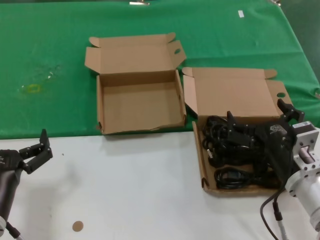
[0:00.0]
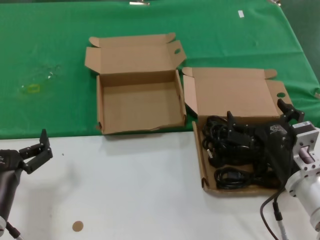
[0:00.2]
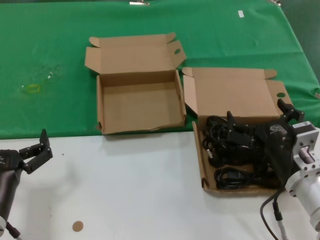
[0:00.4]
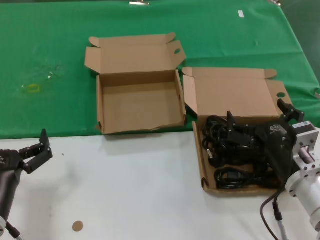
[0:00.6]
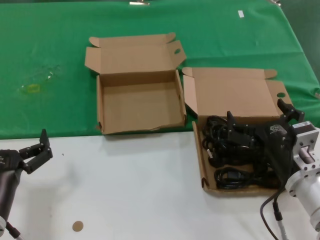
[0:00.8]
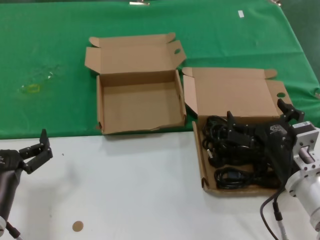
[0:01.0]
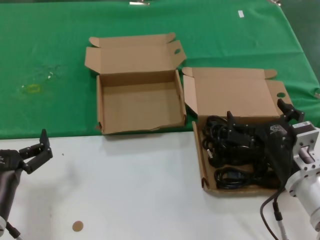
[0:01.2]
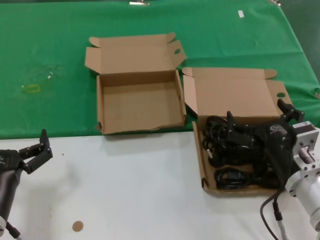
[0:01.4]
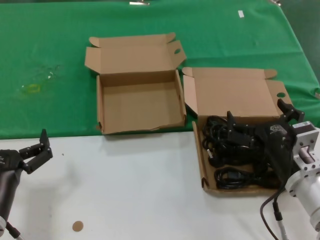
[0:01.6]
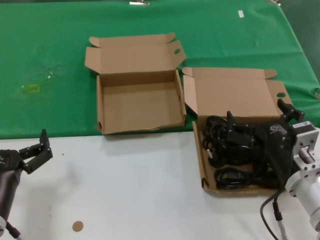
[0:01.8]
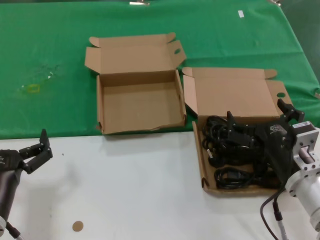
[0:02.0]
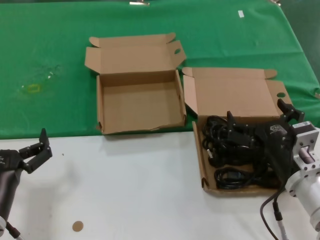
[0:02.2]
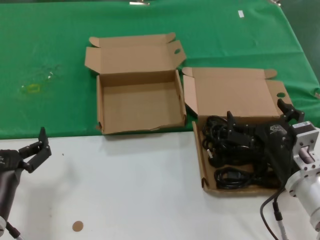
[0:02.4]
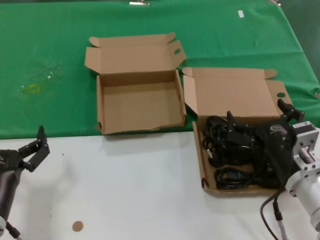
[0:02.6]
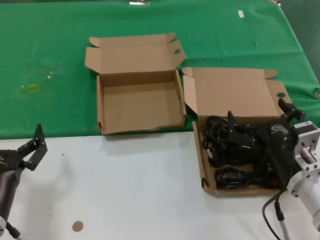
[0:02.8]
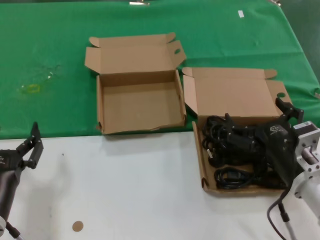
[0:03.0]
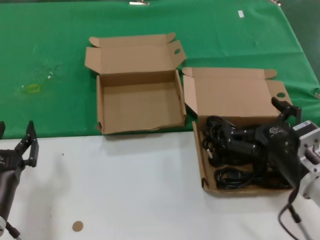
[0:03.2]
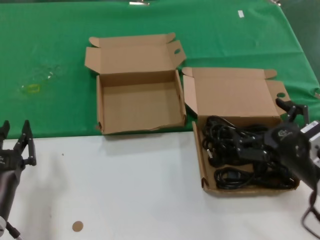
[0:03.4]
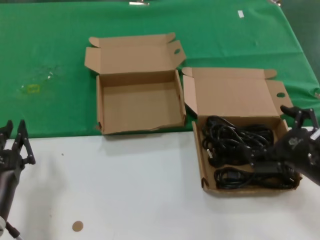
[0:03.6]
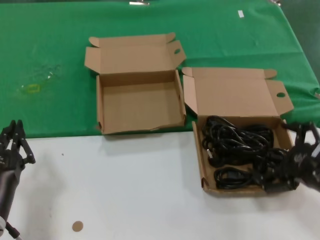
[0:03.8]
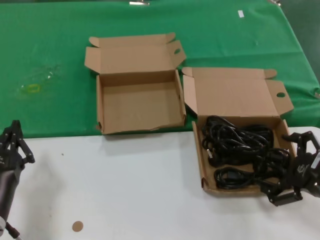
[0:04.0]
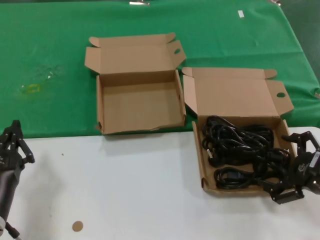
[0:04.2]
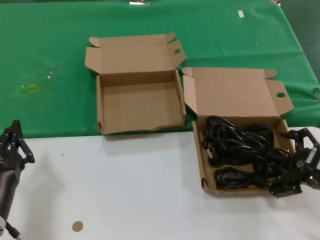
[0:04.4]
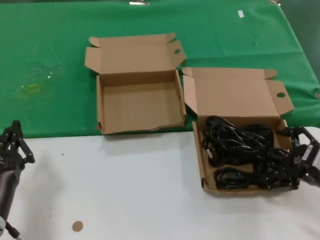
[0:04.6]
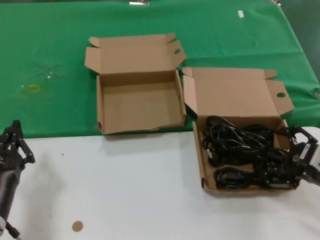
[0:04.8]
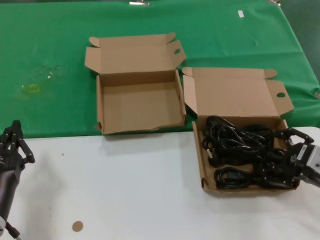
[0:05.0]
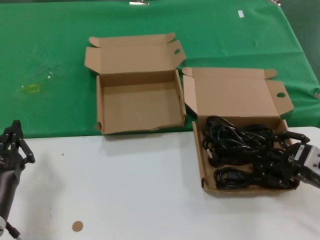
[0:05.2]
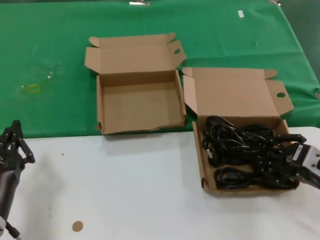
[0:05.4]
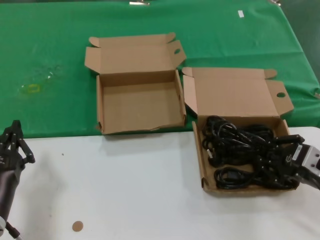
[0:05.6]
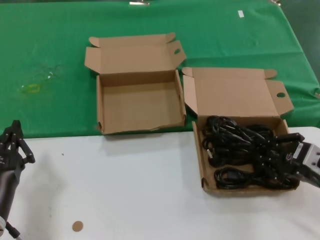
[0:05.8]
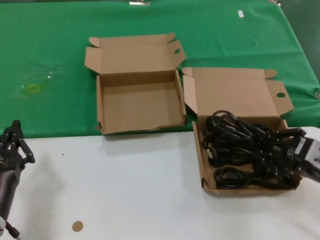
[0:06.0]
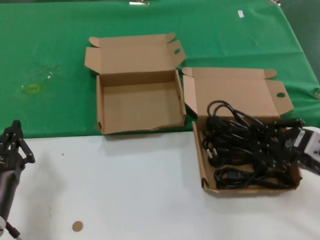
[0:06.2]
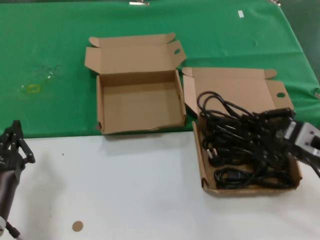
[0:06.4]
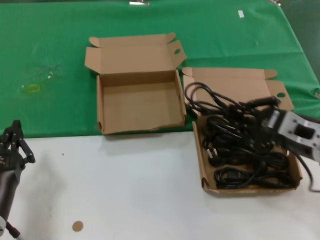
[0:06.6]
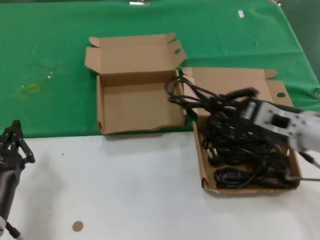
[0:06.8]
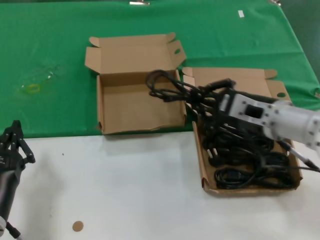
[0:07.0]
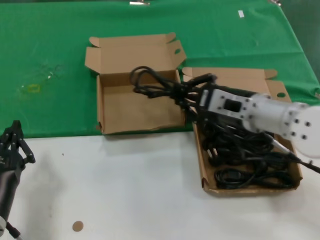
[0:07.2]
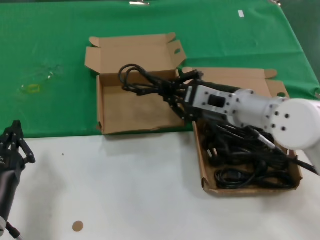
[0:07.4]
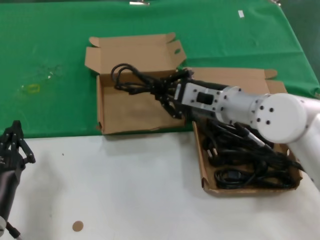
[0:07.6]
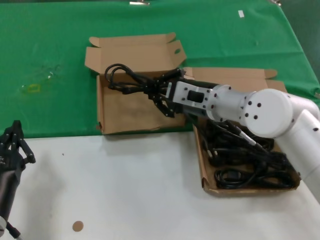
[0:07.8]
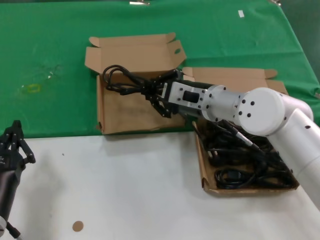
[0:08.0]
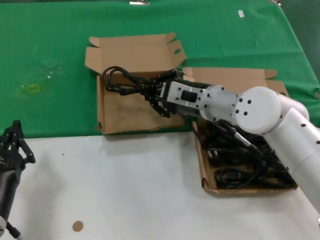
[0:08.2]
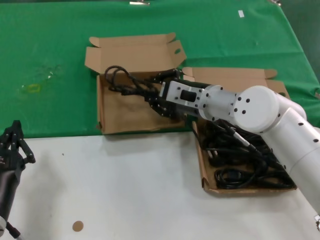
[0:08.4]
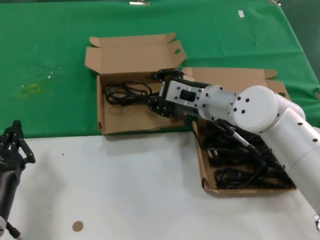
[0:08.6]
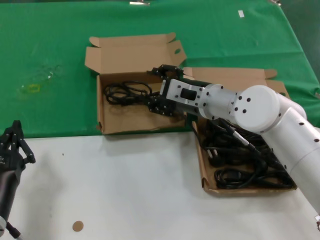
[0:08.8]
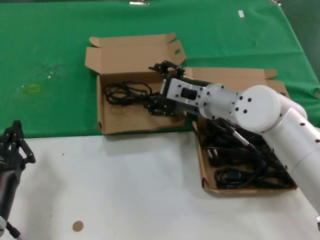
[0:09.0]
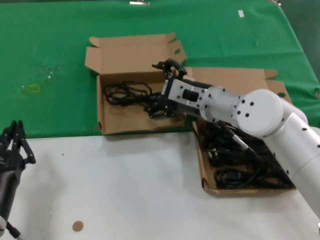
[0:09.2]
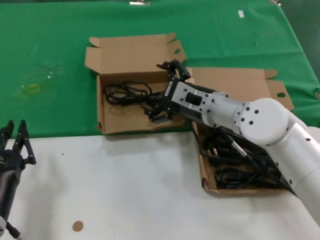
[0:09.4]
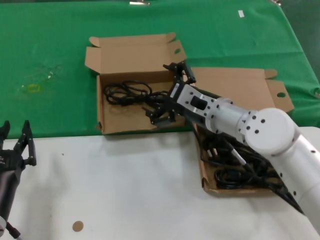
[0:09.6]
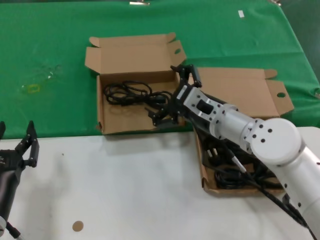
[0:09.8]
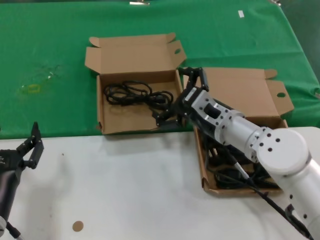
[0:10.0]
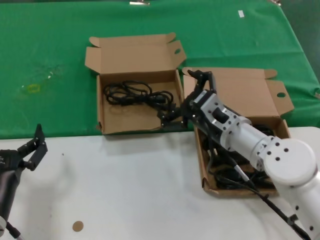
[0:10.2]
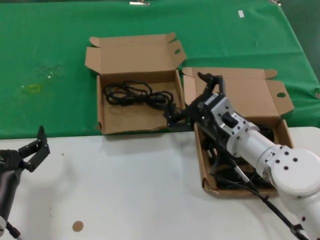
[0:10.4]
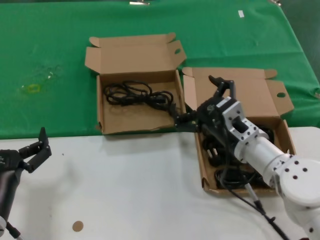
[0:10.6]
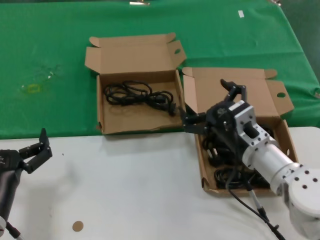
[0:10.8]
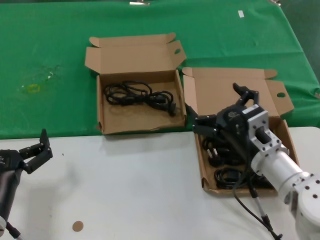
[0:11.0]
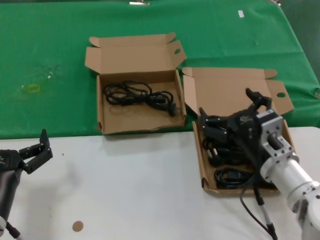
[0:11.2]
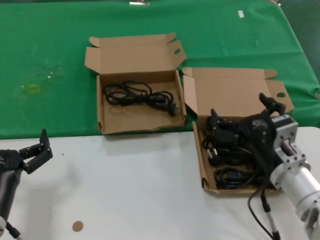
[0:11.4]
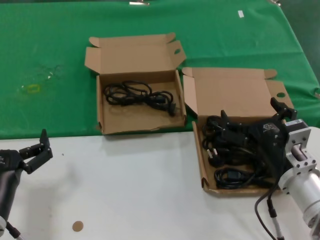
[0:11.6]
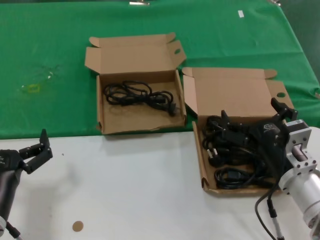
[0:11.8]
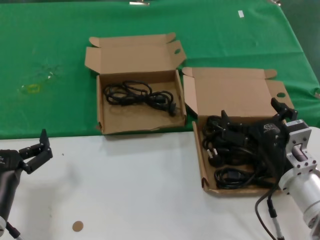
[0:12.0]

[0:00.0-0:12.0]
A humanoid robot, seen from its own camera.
Task of the whole recording: take the parts from the box containing them and put them into an empty box.
Step, 0:00.0 to 0:05.6: Grasp the data cable.
Step, 0:05.8 to 0:09.0: Place the data cable in the another box.
0:00.0 to 0:03.0: The two hands keep their place.
0:03.0 to 0:04.4: The right hand moves to the right, some 10 cm.
0:04.4 to 0:06.0: The hands stay close to where they were, moving slightly.
0:06.0 to 0:07.6: The right hand moves to the left and forward, approximately 25 cm.
0:07.6 to 0:09.0: The hands make only small movements.
0:09.0 to 0:10.4: The right hand travels backward and downward by some 10 cm.
0:10.4 to 0:12.0: The right hand heads backward and to the right, covering about 10 cm.

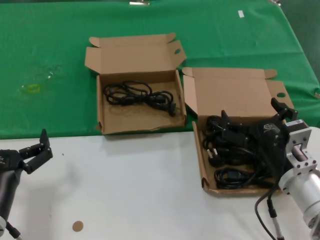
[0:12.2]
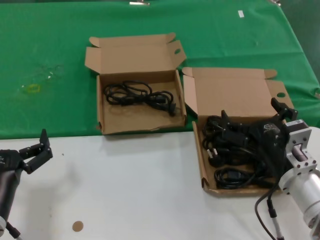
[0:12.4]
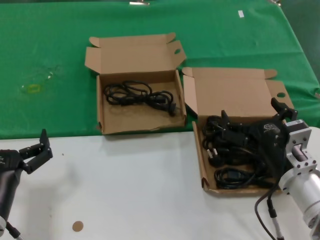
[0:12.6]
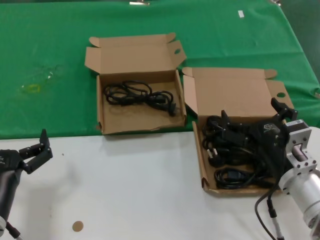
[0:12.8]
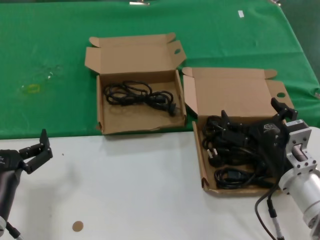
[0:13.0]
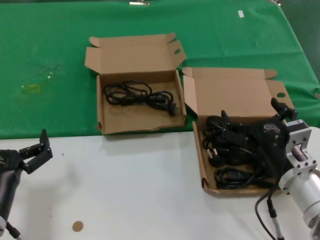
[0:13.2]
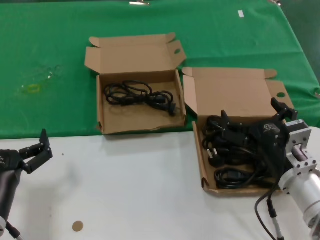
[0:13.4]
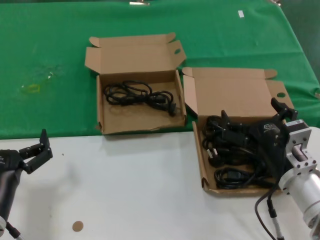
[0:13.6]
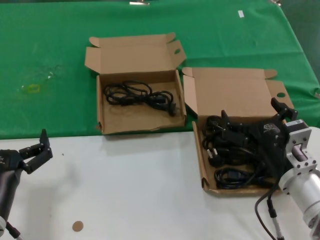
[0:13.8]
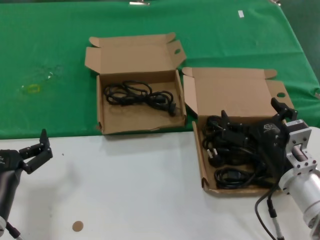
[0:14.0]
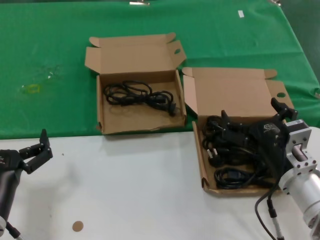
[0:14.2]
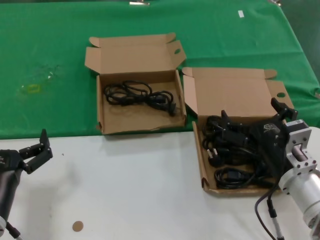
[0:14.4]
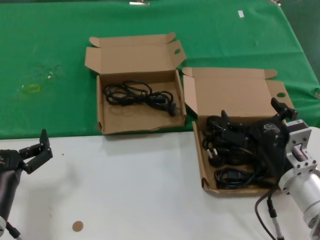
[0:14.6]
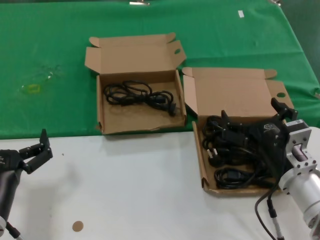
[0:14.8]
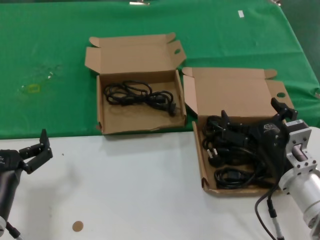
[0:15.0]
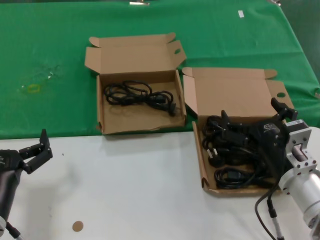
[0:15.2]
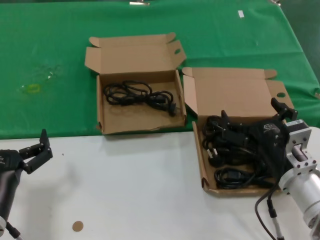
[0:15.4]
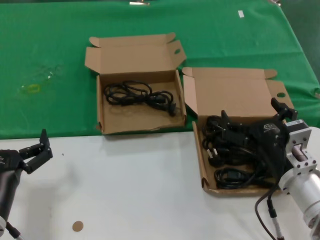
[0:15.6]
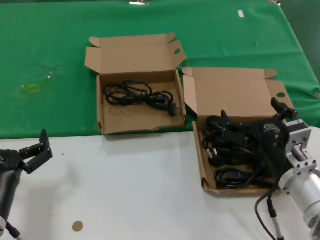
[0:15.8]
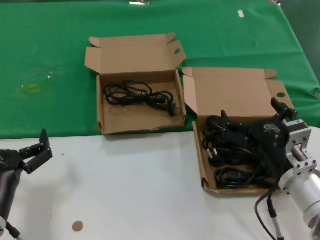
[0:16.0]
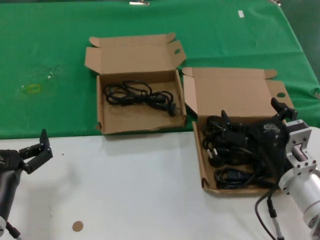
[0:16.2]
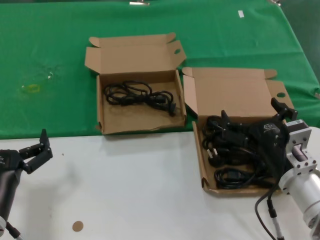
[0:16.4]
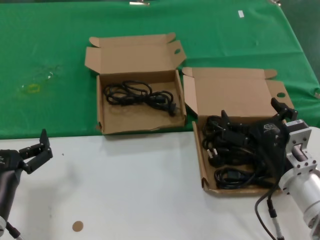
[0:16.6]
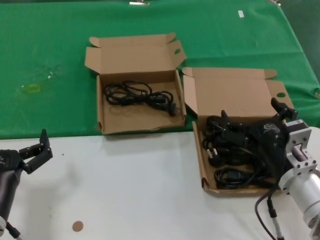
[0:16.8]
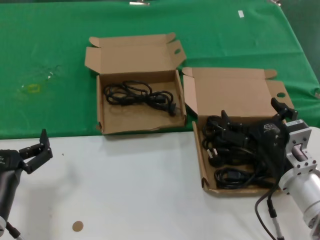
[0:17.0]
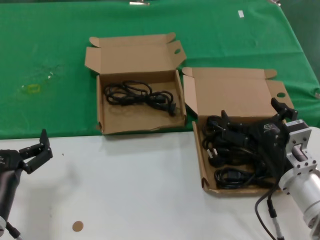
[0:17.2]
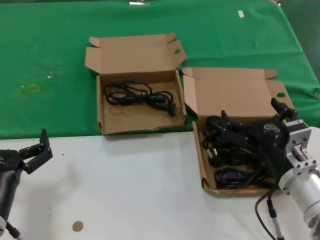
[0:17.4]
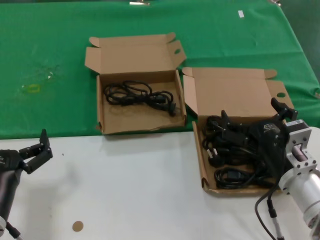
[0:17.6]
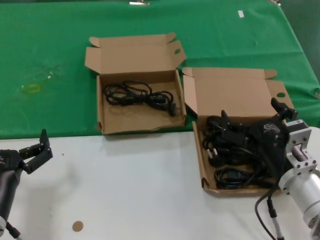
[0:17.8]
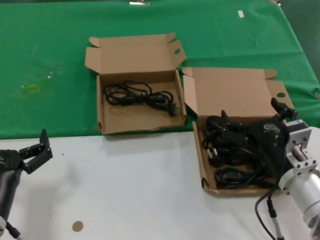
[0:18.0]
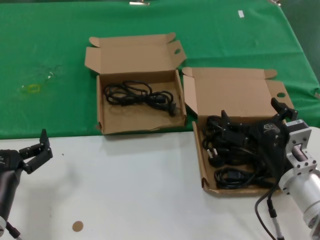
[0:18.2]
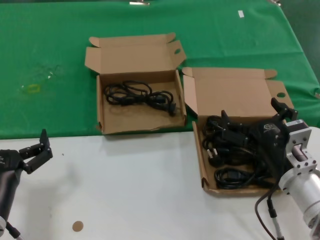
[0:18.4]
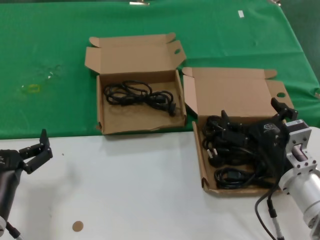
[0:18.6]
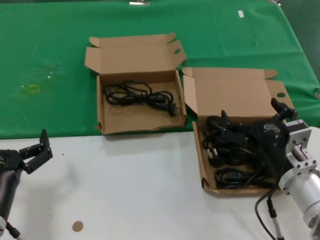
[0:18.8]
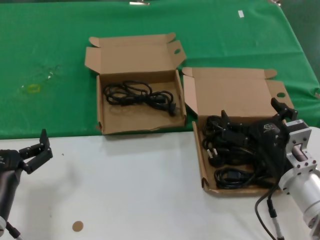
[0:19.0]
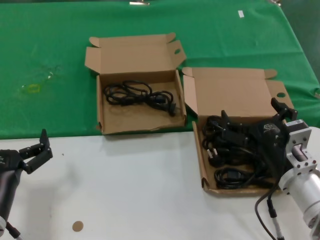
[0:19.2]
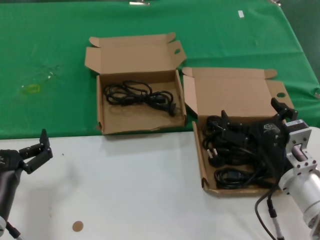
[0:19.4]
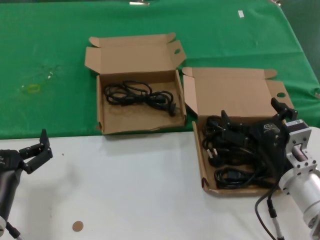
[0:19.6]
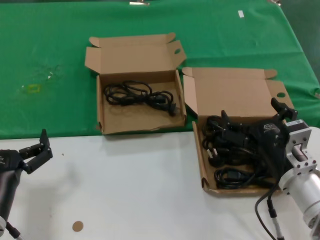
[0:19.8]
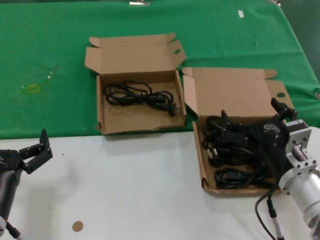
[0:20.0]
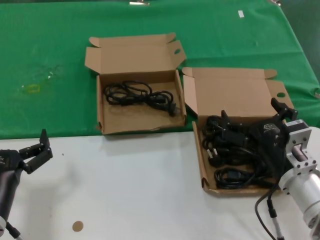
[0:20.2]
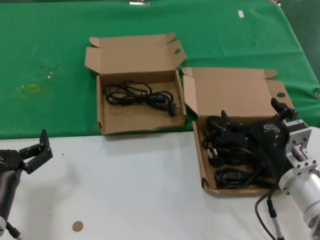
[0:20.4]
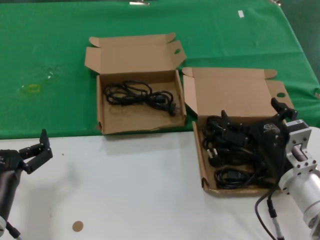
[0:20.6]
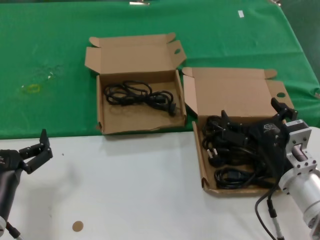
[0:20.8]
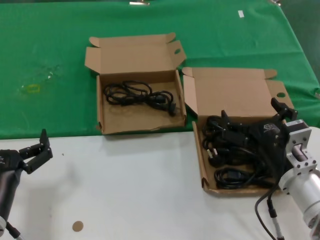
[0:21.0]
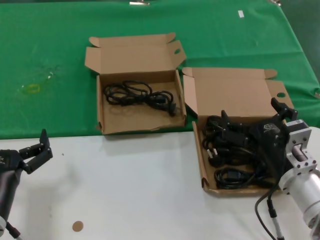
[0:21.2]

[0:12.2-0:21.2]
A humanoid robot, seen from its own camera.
Task of the whole recording: take the parts from the box containing them and put them into an empty box.
0:12.2 to 0:21.2: The two hands keep their place.
